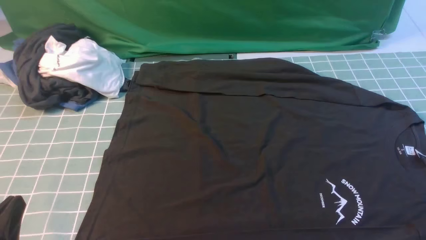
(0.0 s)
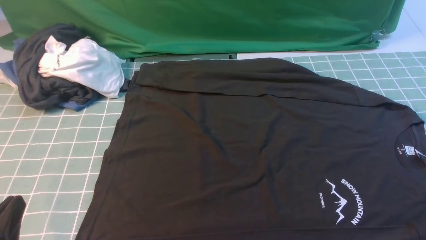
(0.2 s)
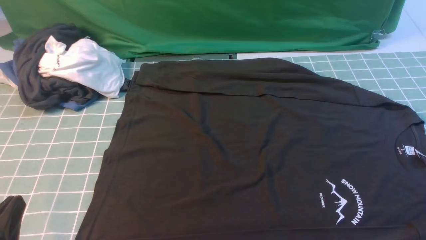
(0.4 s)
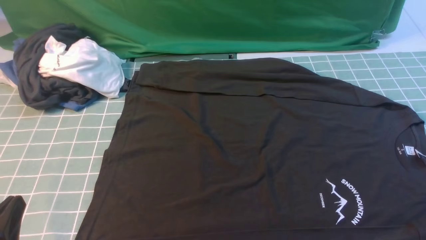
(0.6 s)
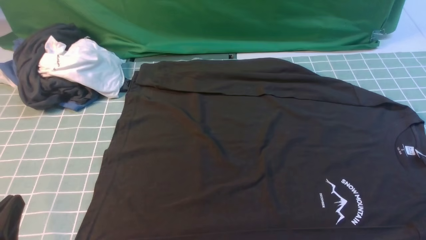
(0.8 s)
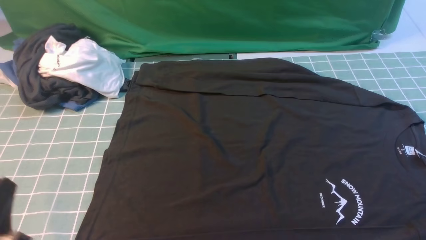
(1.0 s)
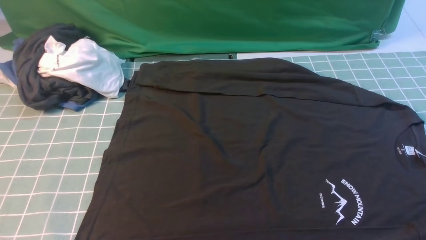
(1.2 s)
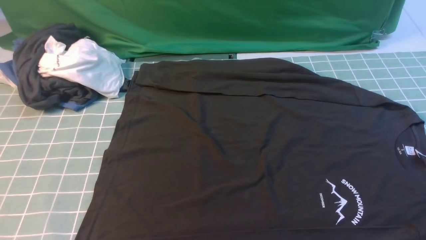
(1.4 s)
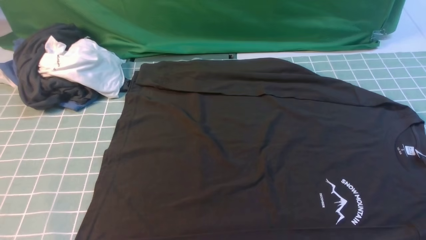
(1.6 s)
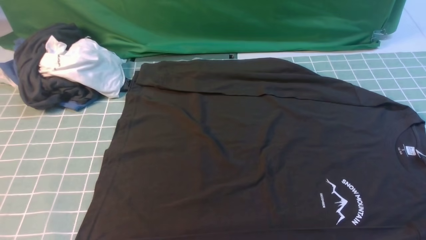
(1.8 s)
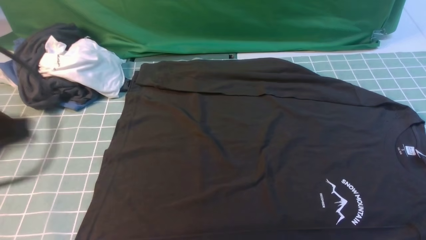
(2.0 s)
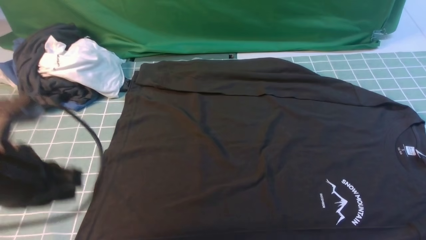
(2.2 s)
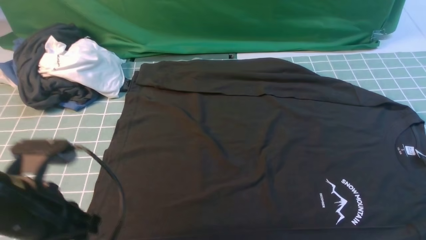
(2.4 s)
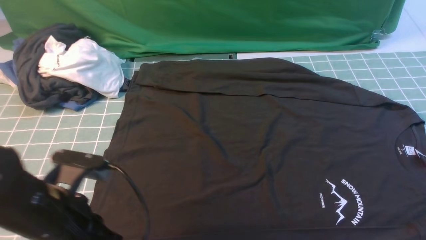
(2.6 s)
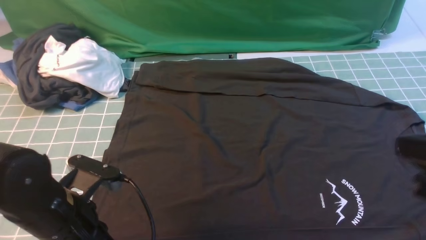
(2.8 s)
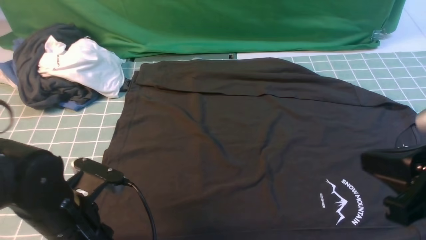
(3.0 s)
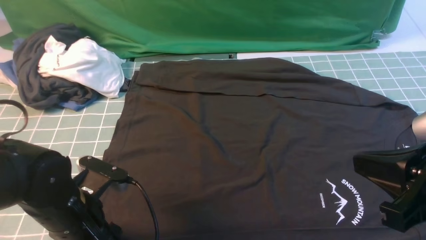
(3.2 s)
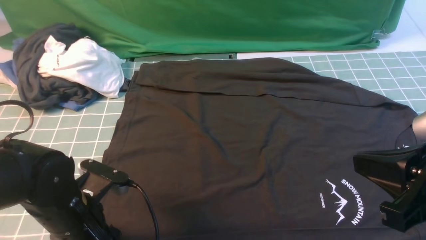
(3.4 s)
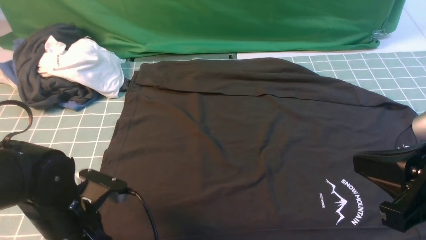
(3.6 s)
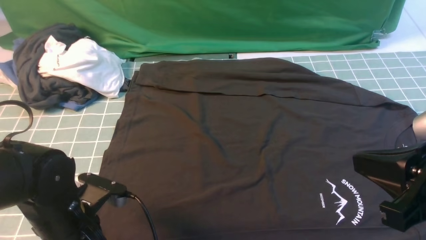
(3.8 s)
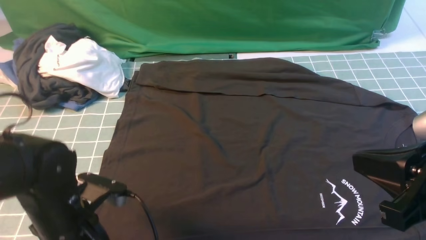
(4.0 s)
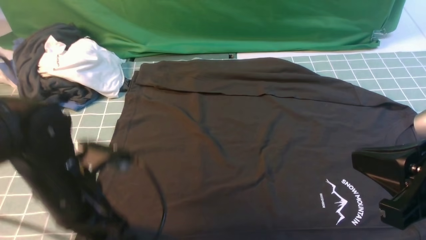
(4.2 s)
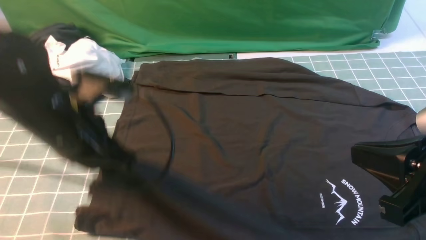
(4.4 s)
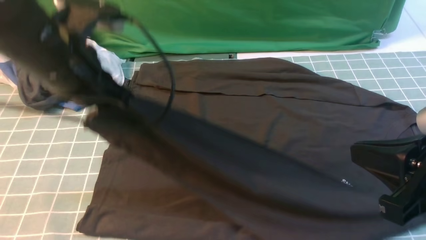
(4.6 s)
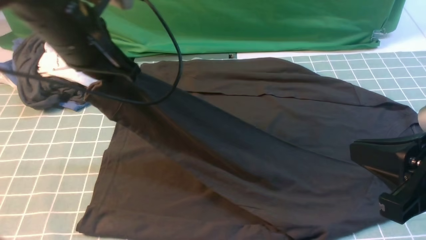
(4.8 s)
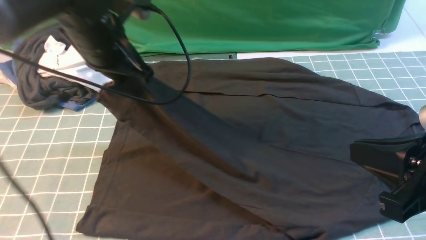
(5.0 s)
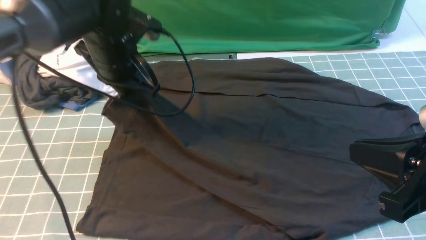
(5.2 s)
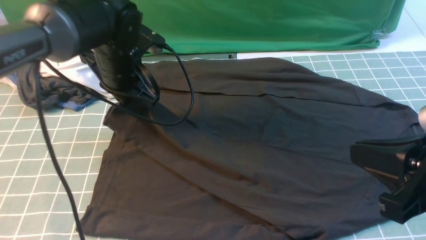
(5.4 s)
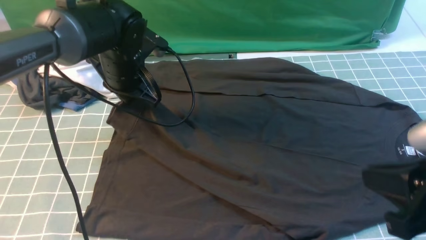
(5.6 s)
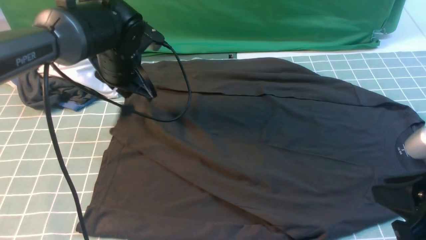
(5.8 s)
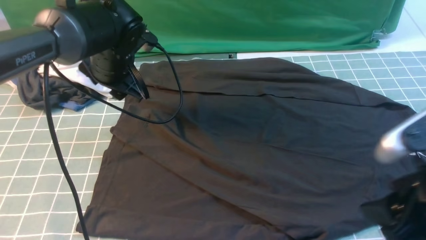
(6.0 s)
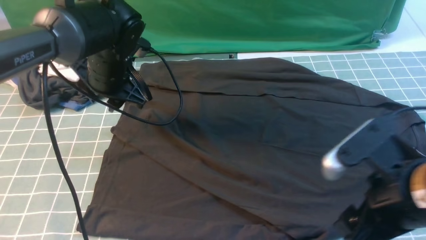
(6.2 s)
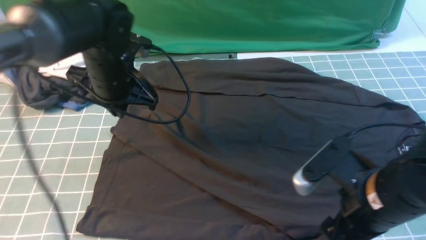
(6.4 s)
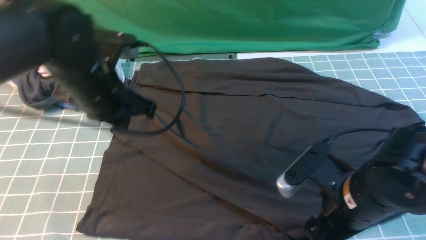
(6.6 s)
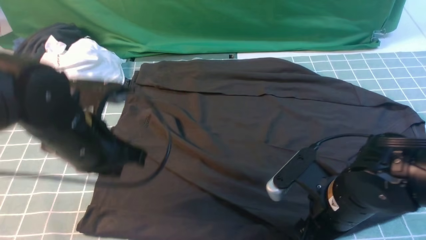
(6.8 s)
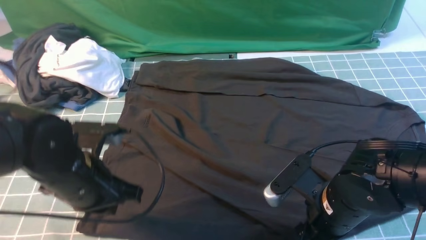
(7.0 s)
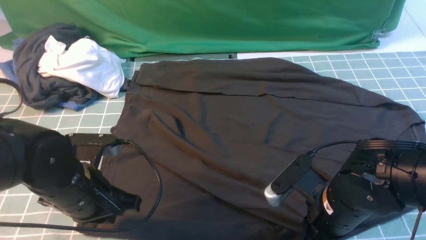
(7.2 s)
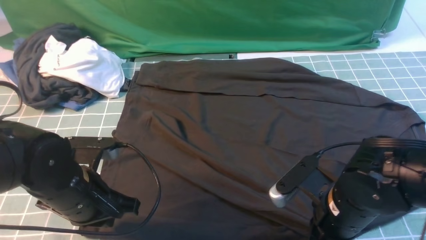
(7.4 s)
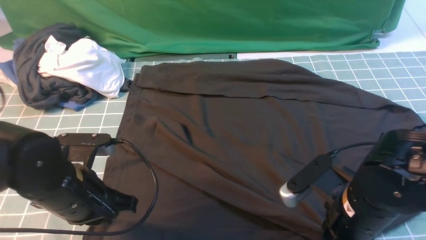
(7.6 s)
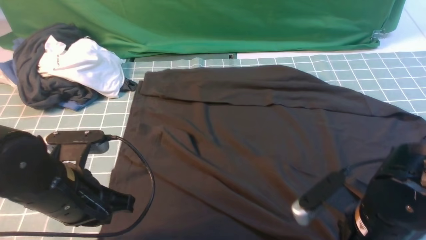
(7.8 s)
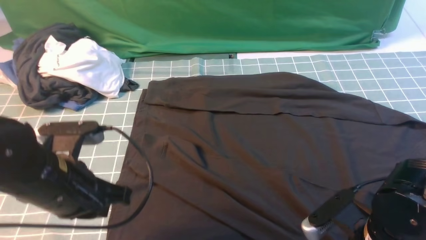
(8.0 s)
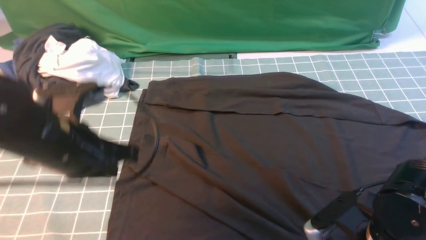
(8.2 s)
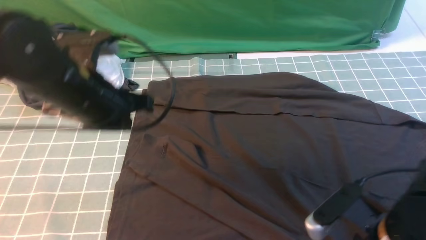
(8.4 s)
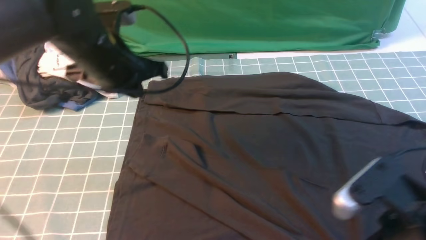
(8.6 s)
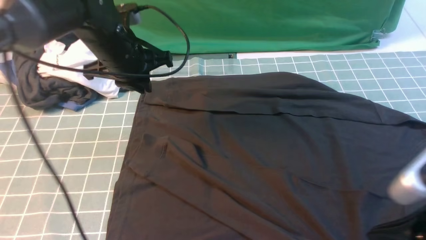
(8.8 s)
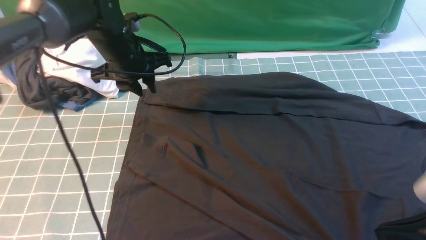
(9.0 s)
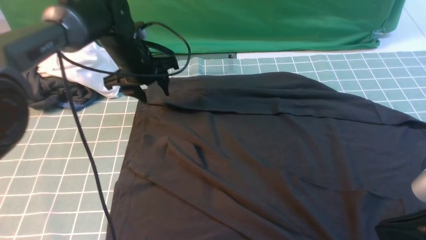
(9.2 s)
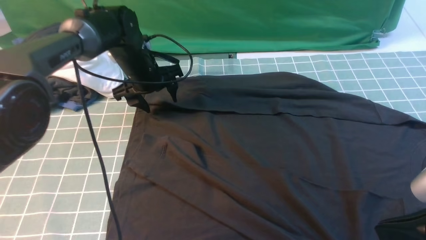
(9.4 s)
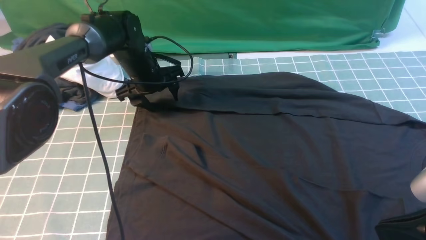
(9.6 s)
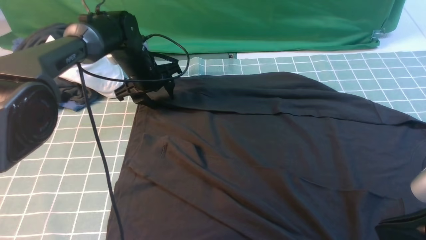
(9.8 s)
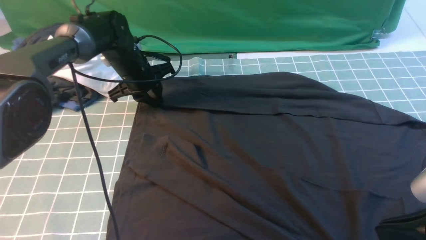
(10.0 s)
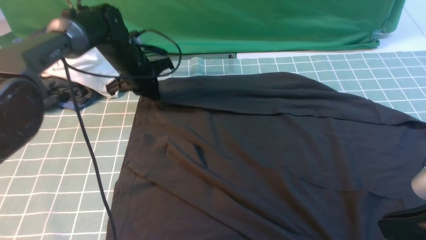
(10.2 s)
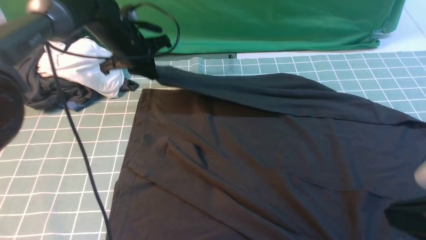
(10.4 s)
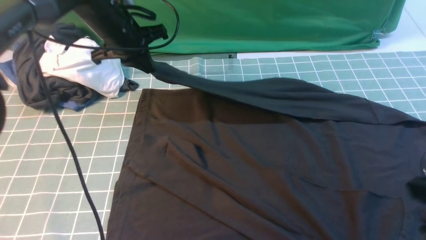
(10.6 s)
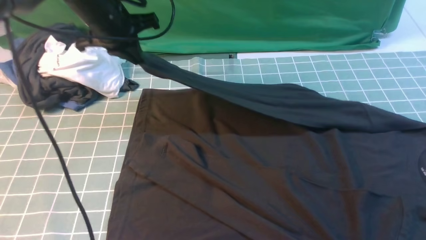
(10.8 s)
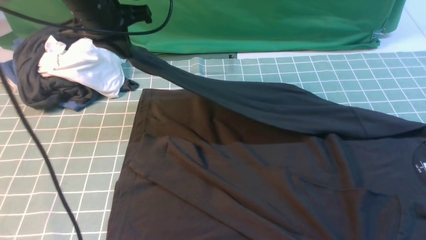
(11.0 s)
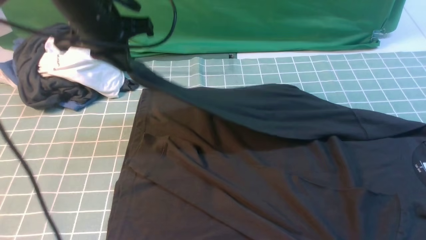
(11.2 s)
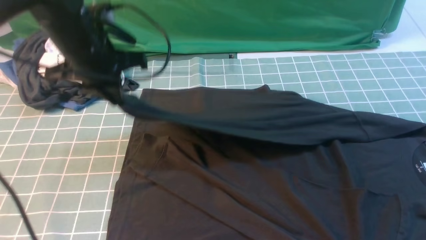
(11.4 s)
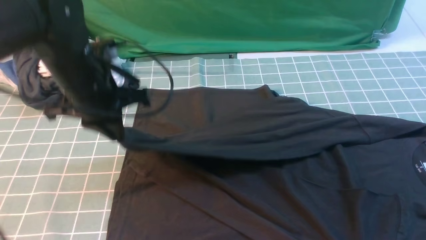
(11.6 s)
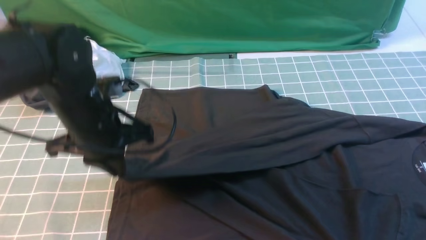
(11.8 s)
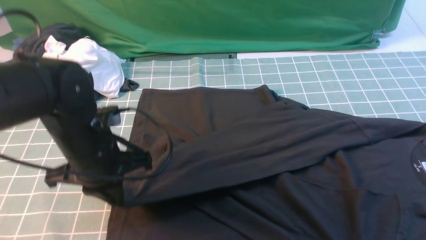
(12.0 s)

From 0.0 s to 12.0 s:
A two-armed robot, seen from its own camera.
Step, from 0.0 s to 4.0 s: use the left arm to clamp the cuff closest to it.
Step, from 4.4 s to 6.0 s: use the left arm to drag and place the cuff at the centered position on the left edge of the fabric.
Step, from 6.2 s to 10.2 s: use the left arm to clamp the cuff farthest from it.
From 0.0 s to 1.6 s: The left gripper travels upward by roughly 20 cm.
From 1.6 s to 3.0 s: The right gripper moves to the left, upward and forward, roughly 15 cm, and closes up; the left gripper shifts some 25 cm downward and forward, and opens up.
From 3.0 s to 4.4 s: The left gripper travels upward and forward by roughly 15 cm, and closes its fingers.
From 4.4 s to 6.0 s: The left gripper shifts about 15 cm forward, and opens its fingers; the right gripper opens its fingers.
From 6.0 s to 7.6 s: The left gripper shifts approximately 20 cm backward, and closes its fingers, while the right gripper goes approximately 10 cm downward and to the left, and closes.
From 7.6 s to 9.0 s: The left gripper goes about 25 cm forward, and opens; the right gripper shifts about 15 cm upward, backward and to the right, and opens, then closes once more.
From 9.0 s to 10.4 s: The left gripper closes its fingers.
From 10.4 s to 12.0 s: The left gripper goes some 20 cm backward. The right gripper changes place by about 5 cm.

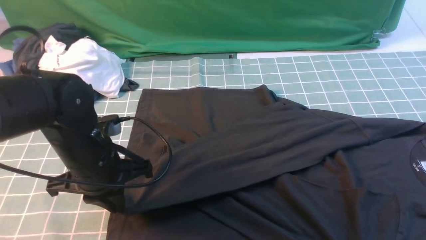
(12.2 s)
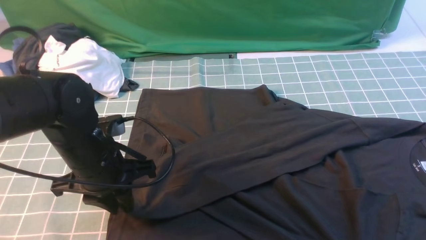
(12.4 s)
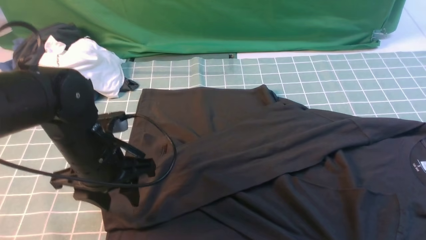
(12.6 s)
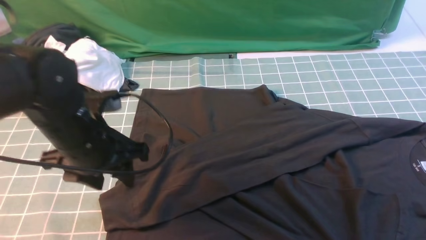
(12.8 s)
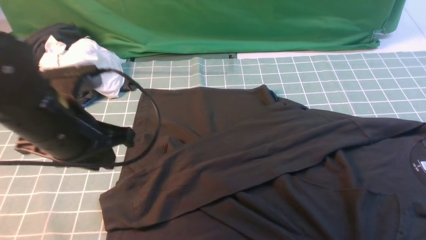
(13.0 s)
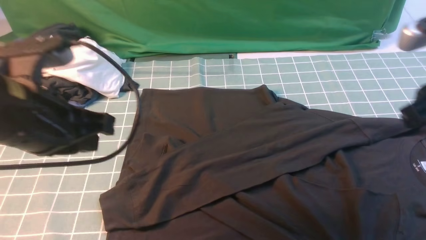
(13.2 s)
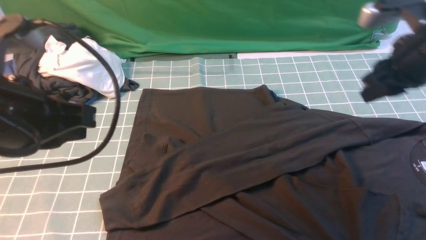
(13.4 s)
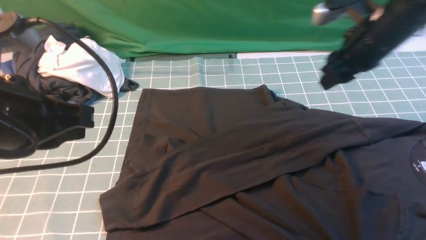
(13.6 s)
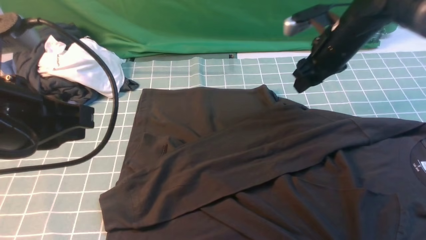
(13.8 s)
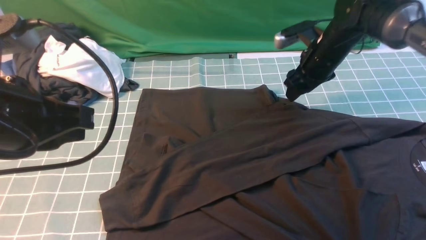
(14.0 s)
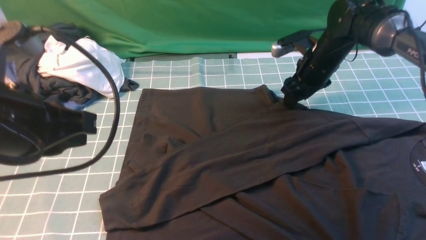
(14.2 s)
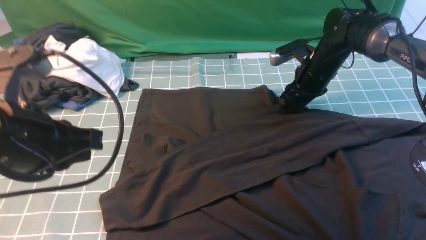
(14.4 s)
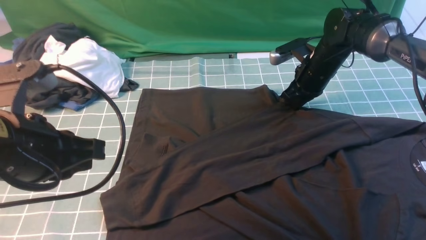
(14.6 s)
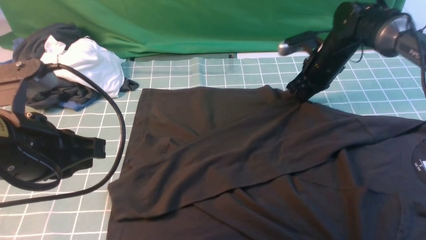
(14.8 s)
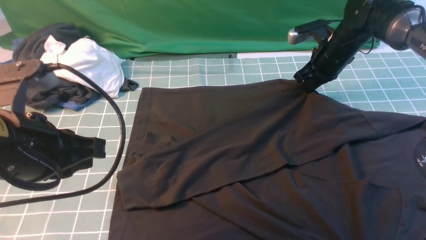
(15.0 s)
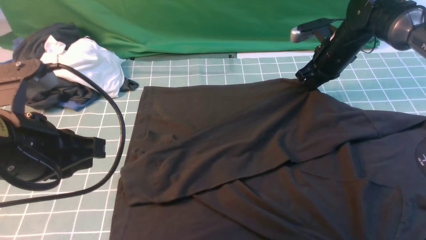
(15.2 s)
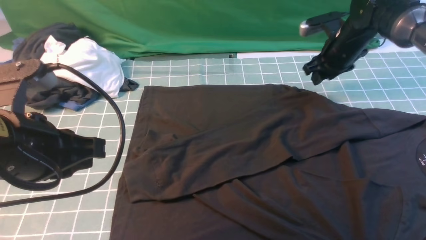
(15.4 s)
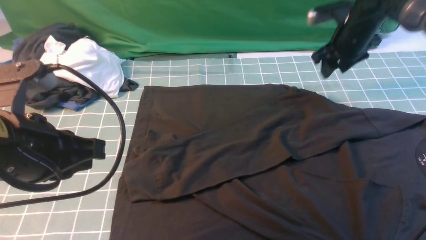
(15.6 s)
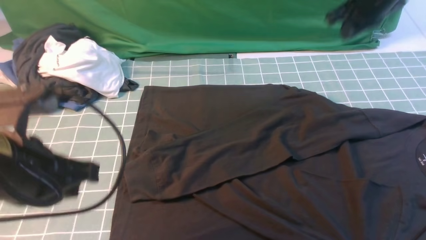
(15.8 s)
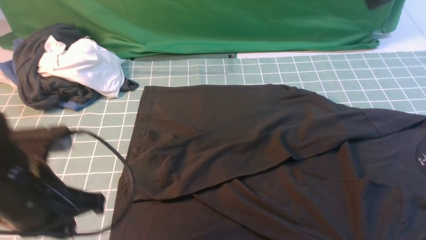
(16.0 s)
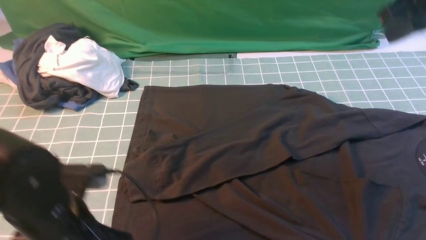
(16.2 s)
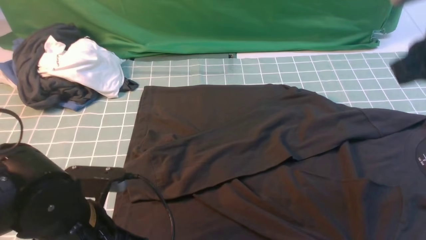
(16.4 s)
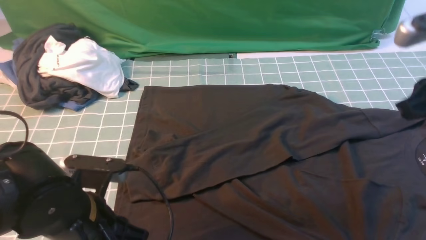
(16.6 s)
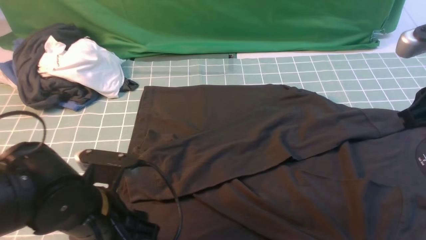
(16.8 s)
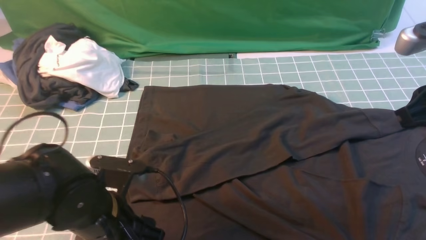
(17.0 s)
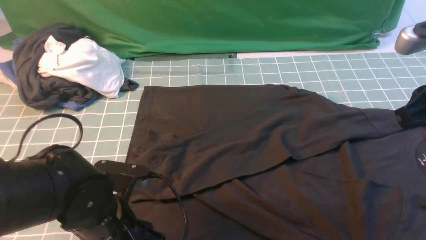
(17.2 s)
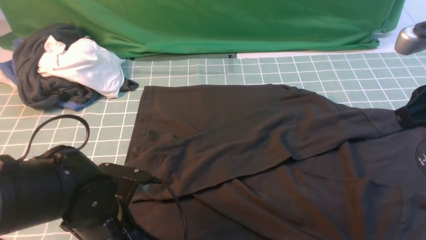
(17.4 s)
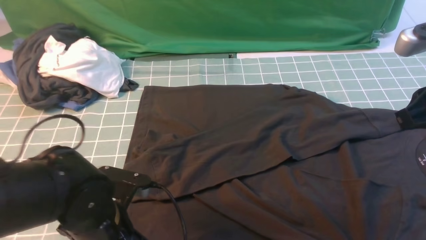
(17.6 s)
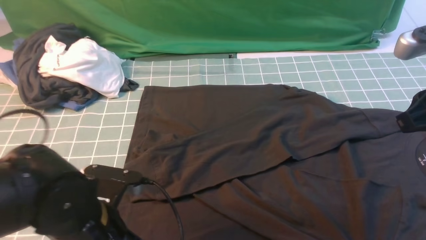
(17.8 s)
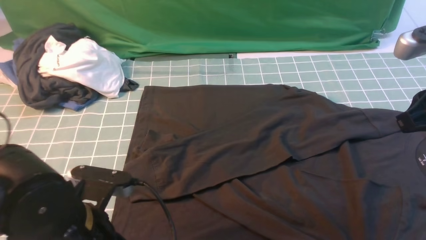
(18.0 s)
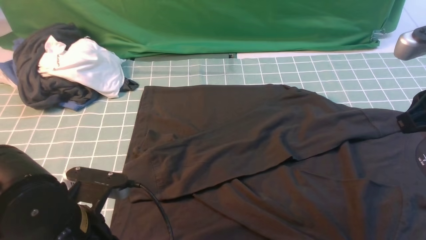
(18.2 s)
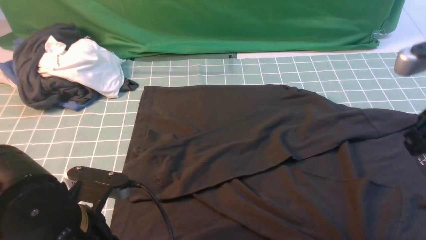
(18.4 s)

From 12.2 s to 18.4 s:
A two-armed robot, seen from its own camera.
From 12.2 s to 13.8 s: The left gripper shifts roughly 15 cm upward and backward, and opens and closes again. Meanwhile the right gripper goes about 35 cm forward, and opens its fingers.
From 13.8 s to 15.4 s: The right gripper travels forward by approximately 5 cm, and closes, then opens again.
From 15.4 s to 16.8 s: The right gripper heads backward and upward, covering about 30 cm, and closes; the left gripper heads downward and to the right, covering some 15 cm, and opens.
From 16.8 s to 18.4 s: The left gripper closes its fingers.
